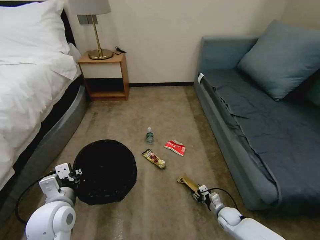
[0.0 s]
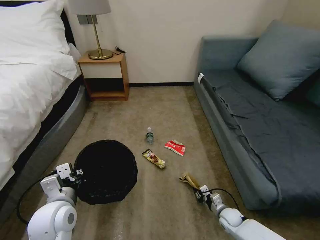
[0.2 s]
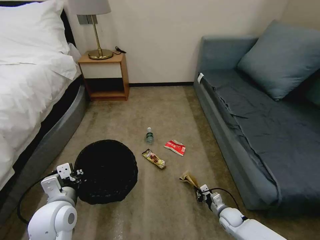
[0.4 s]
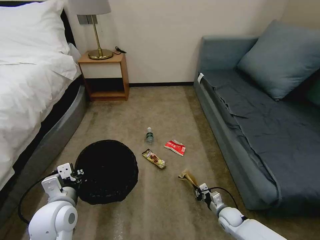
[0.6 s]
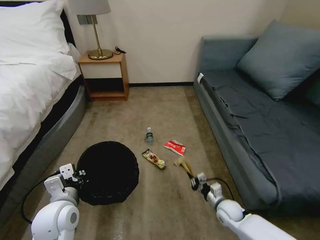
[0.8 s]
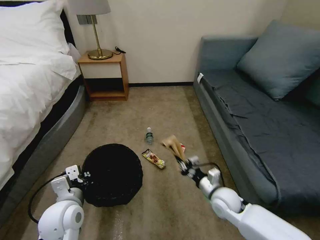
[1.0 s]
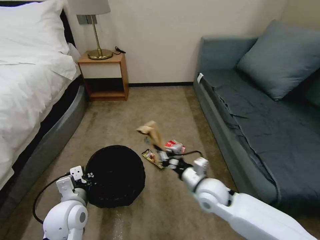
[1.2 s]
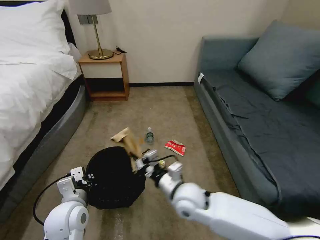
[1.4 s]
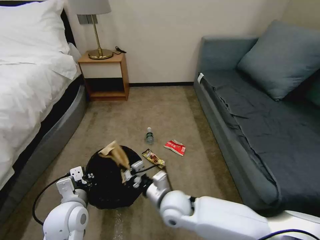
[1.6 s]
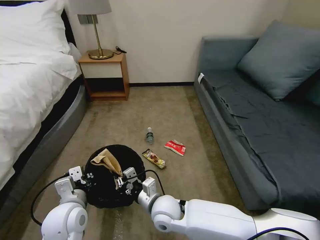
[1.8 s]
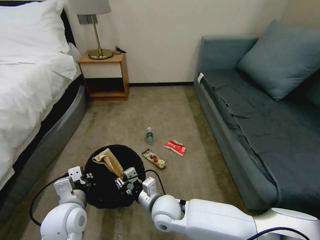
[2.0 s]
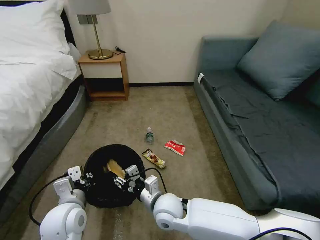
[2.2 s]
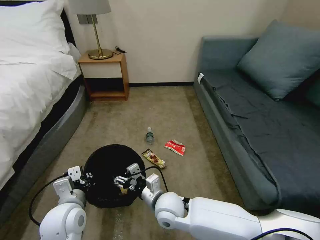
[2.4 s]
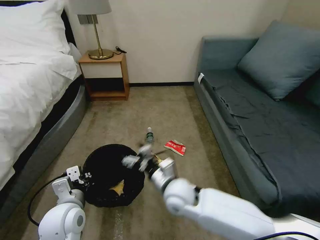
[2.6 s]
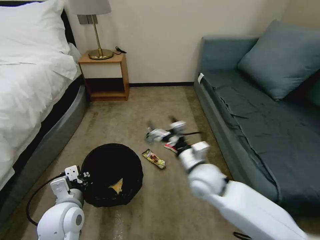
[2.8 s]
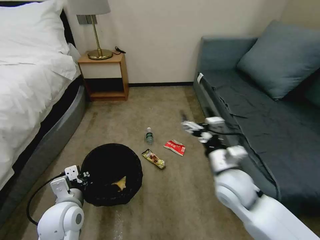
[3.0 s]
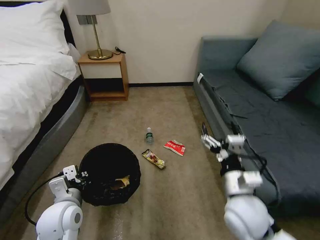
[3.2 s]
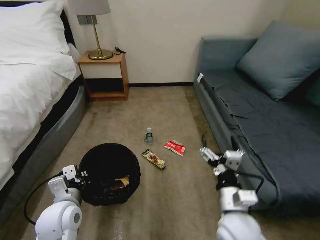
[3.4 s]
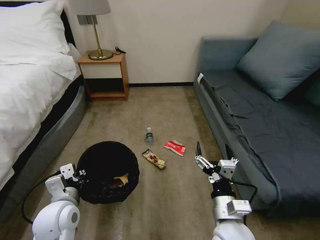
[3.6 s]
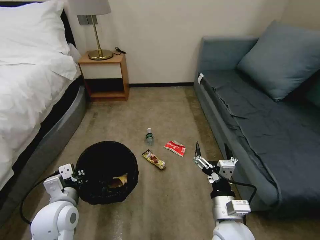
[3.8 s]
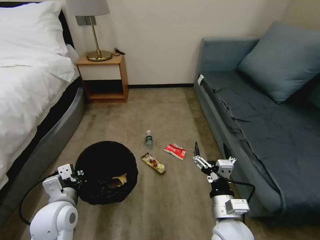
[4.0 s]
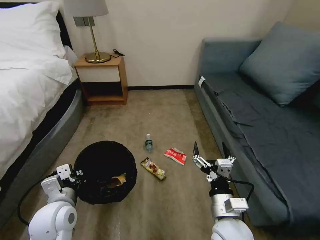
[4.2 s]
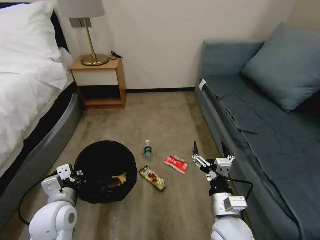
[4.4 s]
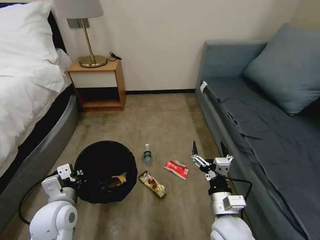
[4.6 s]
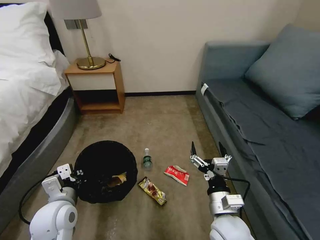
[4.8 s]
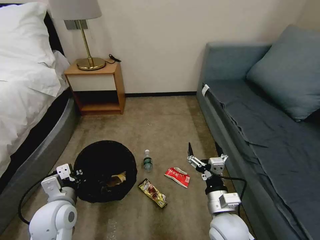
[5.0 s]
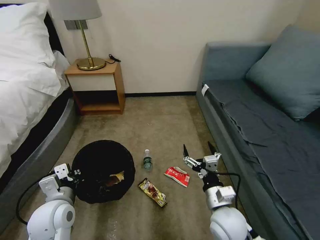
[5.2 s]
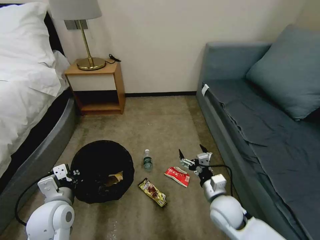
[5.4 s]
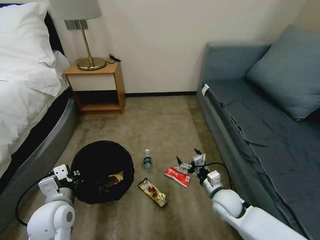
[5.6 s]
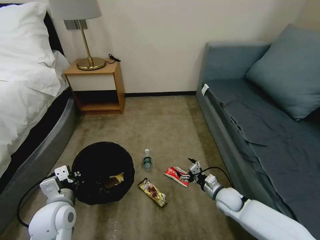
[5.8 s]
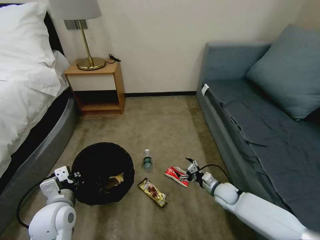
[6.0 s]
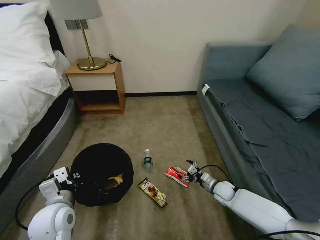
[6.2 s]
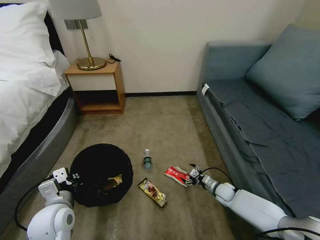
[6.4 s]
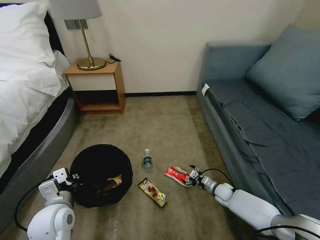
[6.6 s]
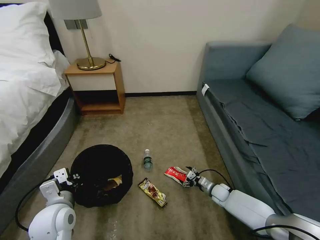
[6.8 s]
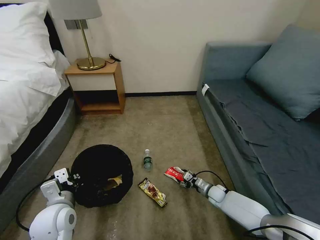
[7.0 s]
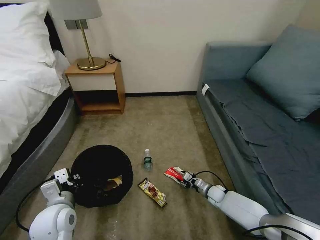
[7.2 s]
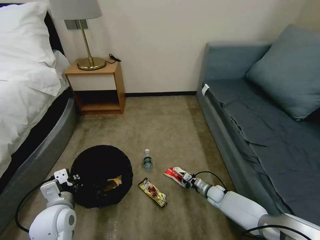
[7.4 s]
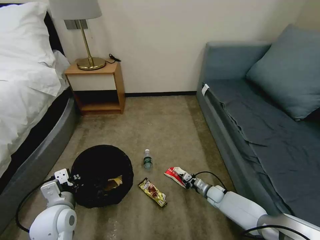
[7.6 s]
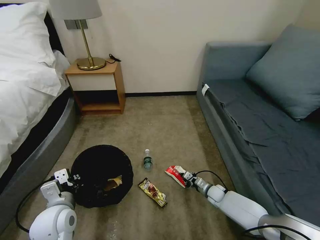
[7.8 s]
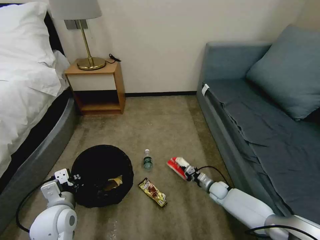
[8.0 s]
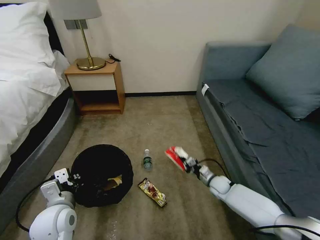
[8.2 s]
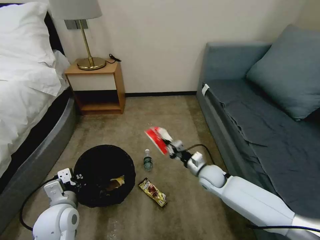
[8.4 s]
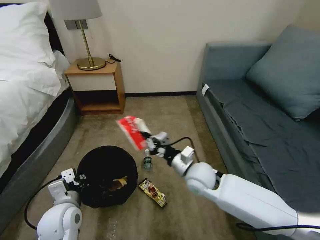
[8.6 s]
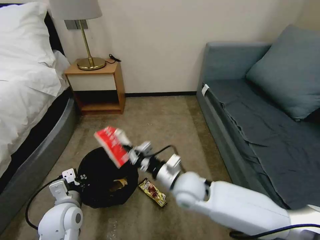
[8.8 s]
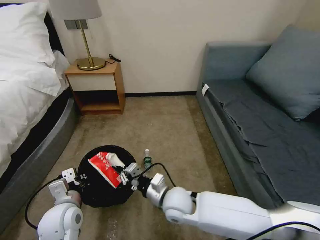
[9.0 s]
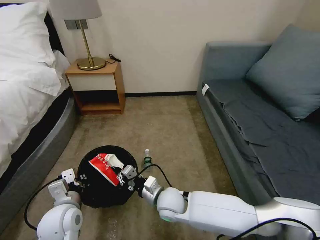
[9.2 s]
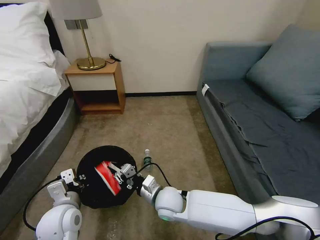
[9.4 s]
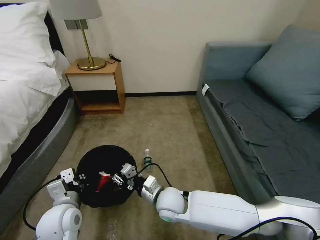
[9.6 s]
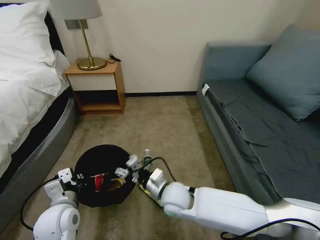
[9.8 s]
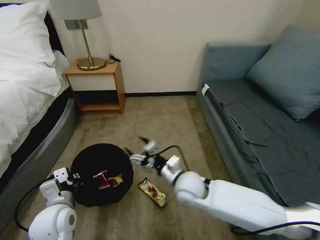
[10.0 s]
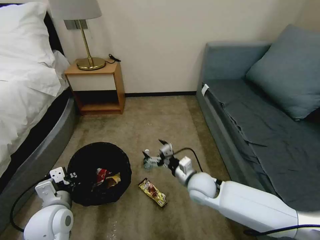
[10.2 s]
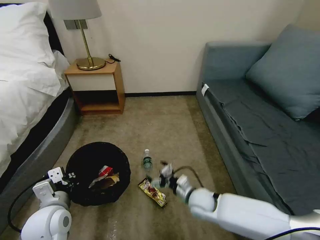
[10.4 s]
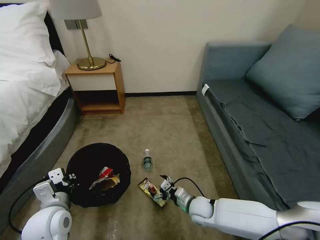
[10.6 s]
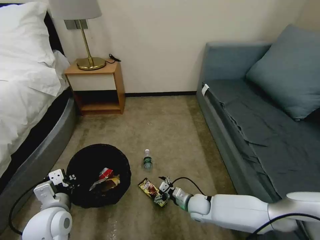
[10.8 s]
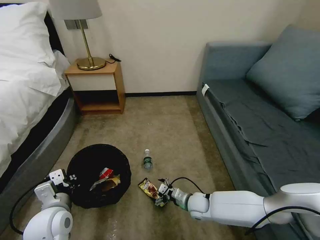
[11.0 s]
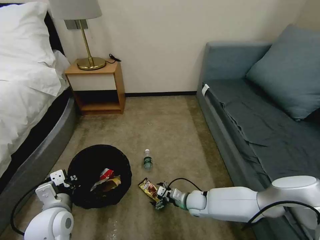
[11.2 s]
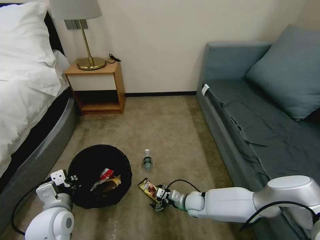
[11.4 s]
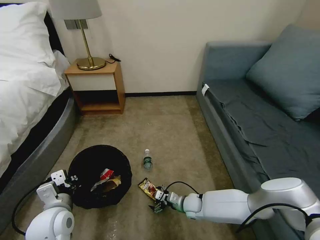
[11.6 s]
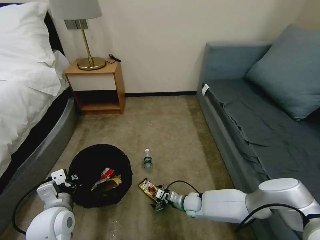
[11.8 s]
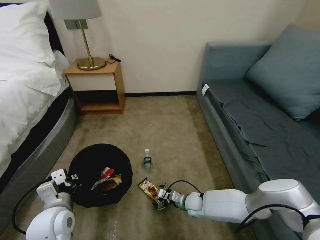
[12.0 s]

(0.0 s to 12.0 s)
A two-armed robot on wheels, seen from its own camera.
Task of the whole recording: Pick up the trash bin, then pick up the garbage on the floor and place it into the trash bin.
0.0 s - 1.6 s: The right gripper goes approximately 35 cm to the left and upward, and closes.
1.6 s - 3.0 s: The right gripper goes approximately 20 cm to the right and upward, and opens up.
3.0 s - 4.4 s: The right gripper heads backward and downward, covering approximately 10 cm.
4.4 s - 6.0 s: The right gripper moves forward, downward and to the right, approximately 25 cm.
6.0 s - 7.6 s: The right gripper shifts roughly 10 cm downward, and closes up.
7.6 s - 9.0 s: The right gripper heads upward, to the left and backward, covering some 35 cm.
9.0 s - 10.4 s: The right gripper is displaced to the right and downward by approximately 15 cm, and opens.
10.4 s - 12.0 s: The right gripper is displaced downward by some 10 cm.

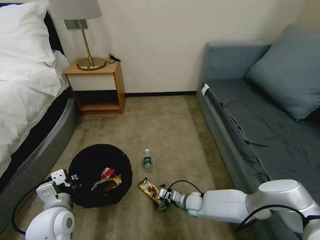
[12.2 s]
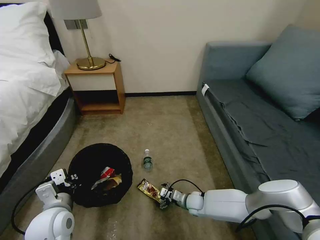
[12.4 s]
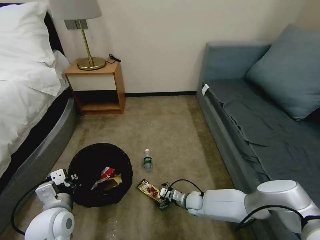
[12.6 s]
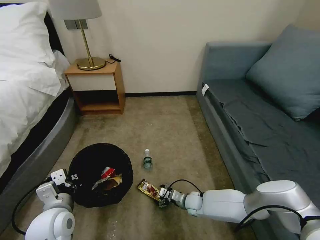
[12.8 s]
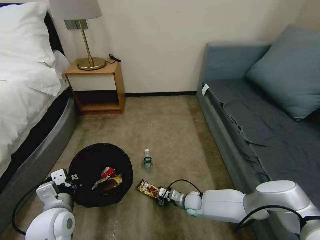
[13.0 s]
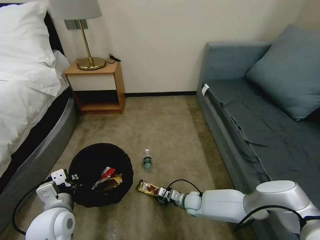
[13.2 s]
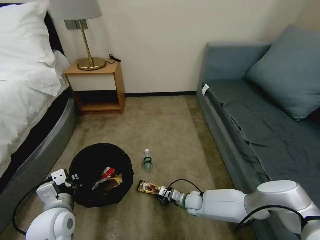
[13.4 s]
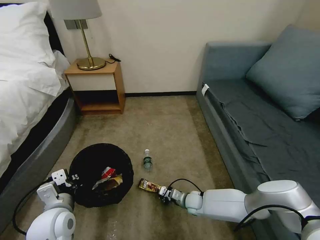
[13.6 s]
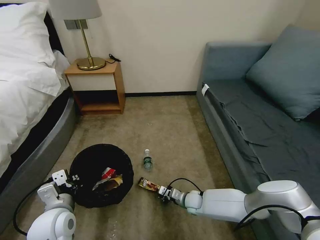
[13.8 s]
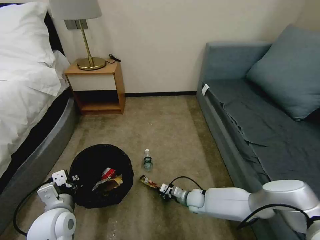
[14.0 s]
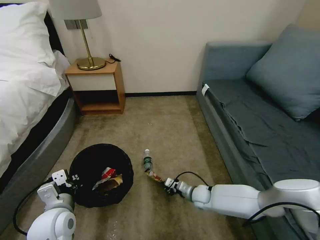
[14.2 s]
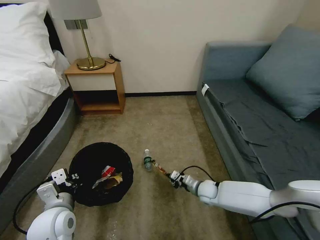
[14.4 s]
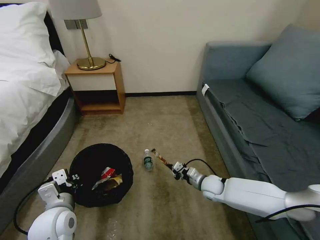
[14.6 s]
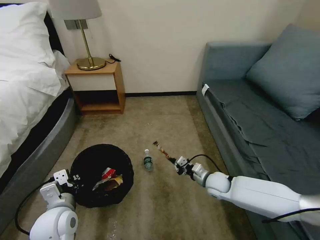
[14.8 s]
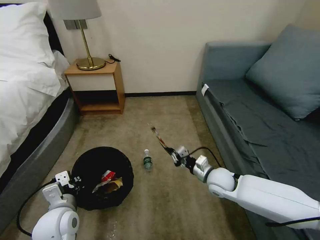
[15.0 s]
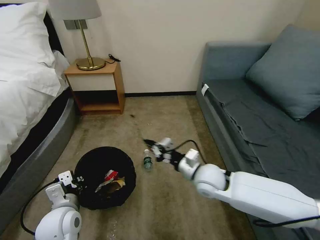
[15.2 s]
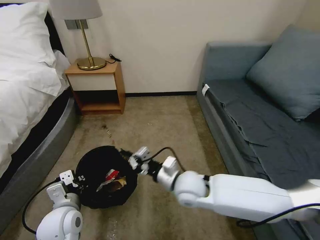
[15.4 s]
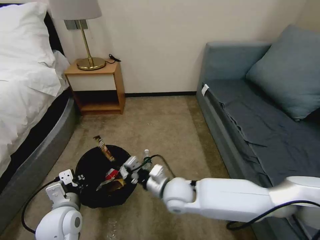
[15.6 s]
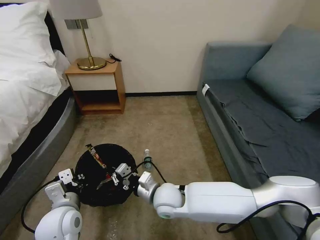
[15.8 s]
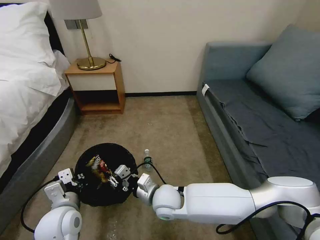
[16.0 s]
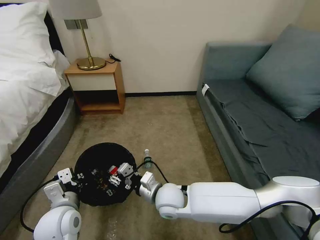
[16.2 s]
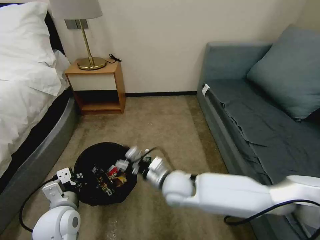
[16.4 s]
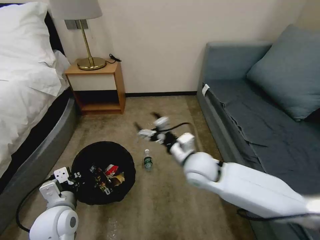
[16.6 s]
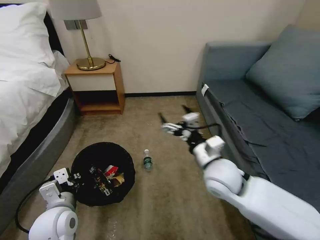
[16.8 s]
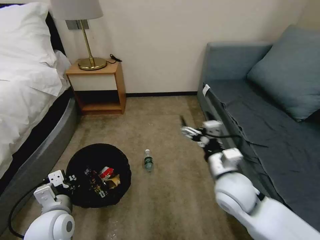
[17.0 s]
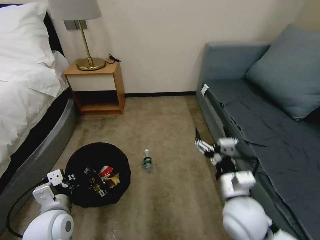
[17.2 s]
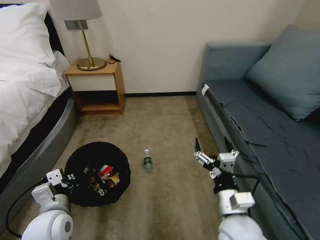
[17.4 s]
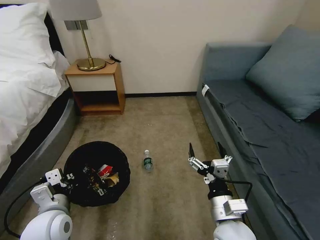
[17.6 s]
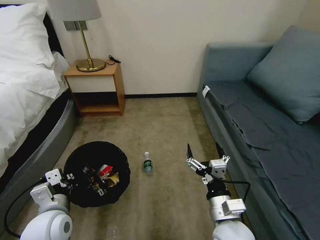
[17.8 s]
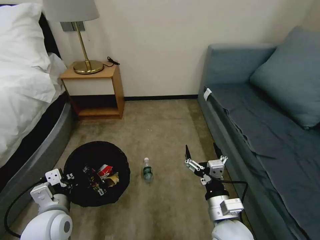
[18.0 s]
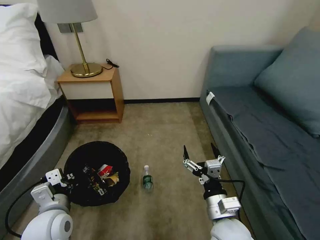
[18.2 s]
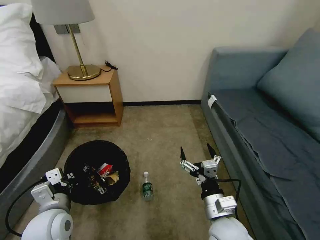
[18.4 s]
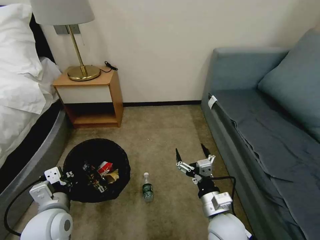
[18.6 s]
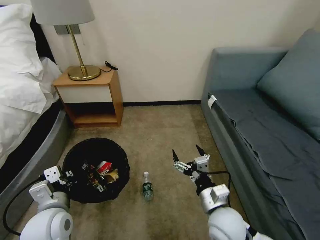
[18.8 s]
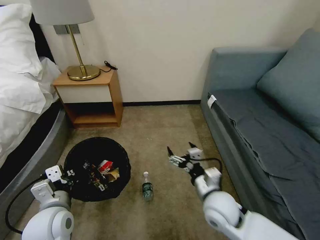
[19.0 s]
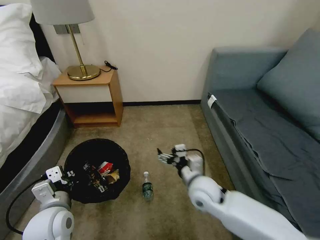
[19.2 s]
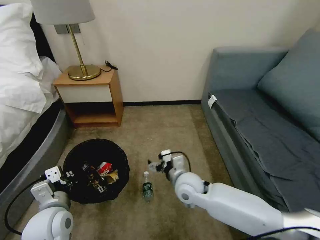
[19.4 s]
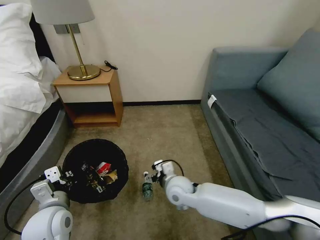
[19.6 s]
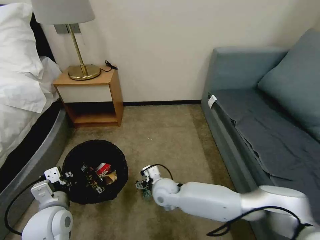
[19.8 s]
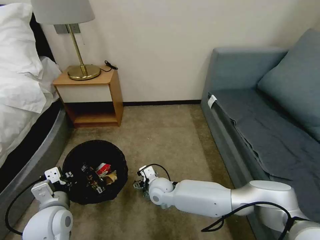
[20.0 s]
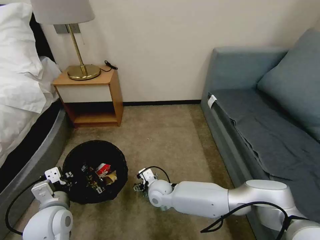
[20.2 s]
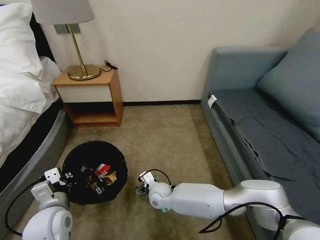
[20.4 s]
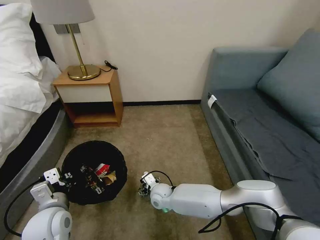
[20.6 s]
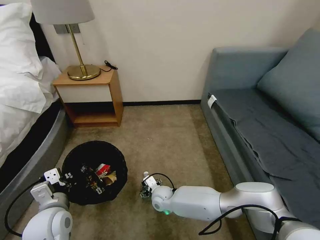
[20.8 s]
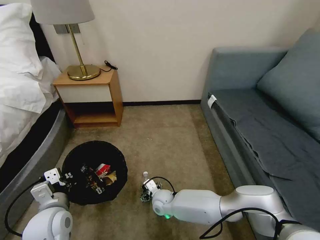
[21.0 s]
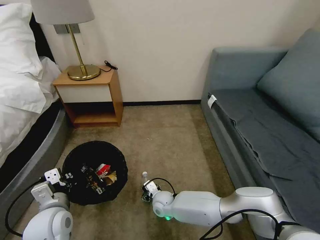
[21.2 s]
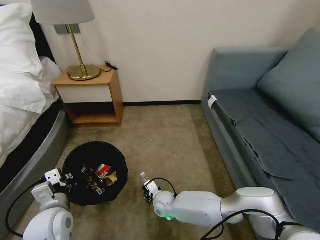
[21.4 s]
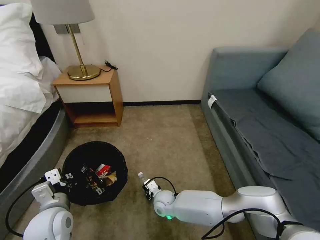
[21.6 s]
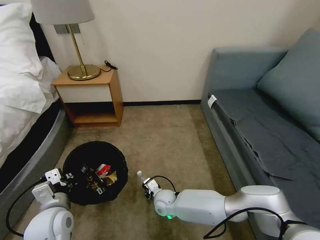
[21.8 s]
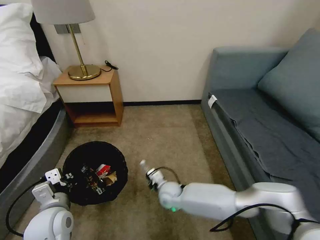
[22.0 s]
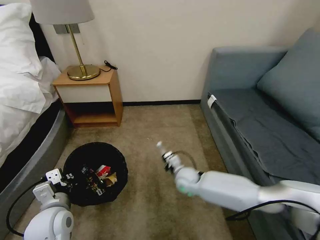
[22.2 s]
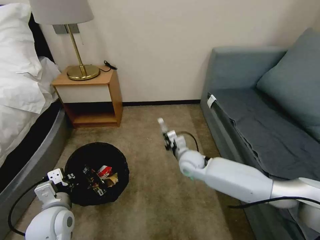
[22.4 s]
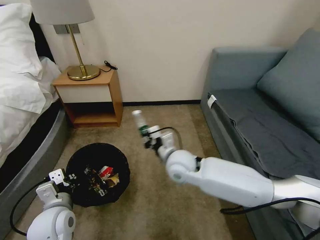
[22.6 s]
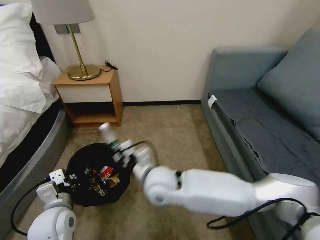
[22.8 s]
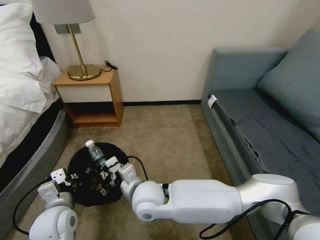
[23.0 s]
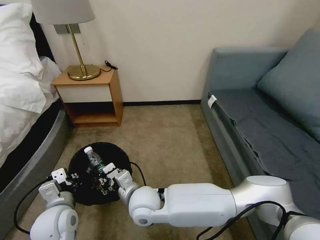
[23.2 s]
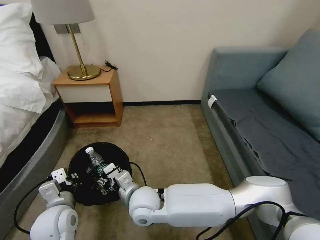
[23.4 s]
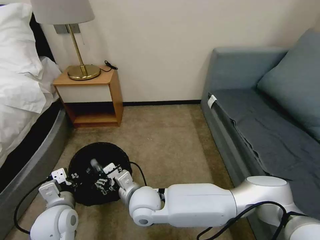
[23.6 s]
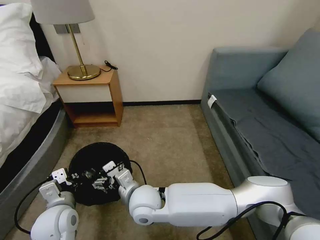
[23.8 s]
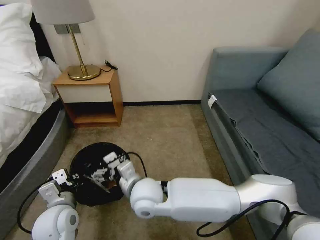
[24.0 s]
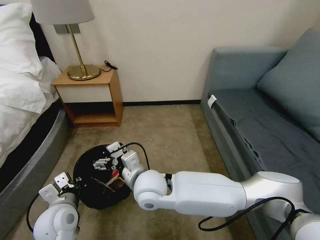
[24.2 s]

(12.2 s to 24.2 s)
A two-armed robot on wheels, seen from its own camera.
Task of the whole recording: Pick up the trash bin, then pick up the garbage on the floor and place it into the trash bin.
12.2 s - 13.8 s: The right gripper closes.
13.8 s - 15.2 s: The right gripper shifts some 25 cm upward.
15.2 s - 16.6 s: The right gripper goes to the left and returns, some 15 cm each way, and opens.
16.6 s - 18.2 s: The right gripper is displaced backward and downward by approximately 20 cm.
18.2 s - 19.8 s: The right gripper moves forward, to the left and downward, about 25 cm.
19.8 s - 21.2 s: The right gripper shifts roughly 10 cm downward.
21.2 s - 22.6 s: The right gripper travels upward by some 25 cm, and closes.
22.6 s - 24.2 s: The right gripper goes some 10 cm to the left and backward, and opens its fingers.
